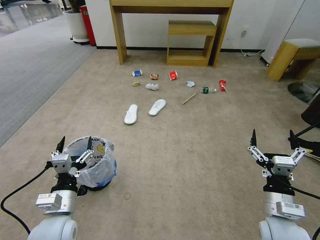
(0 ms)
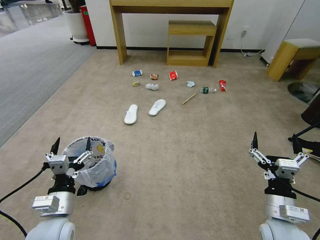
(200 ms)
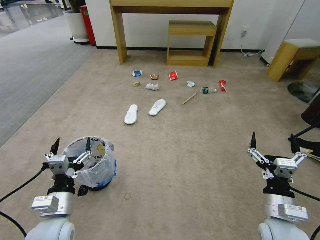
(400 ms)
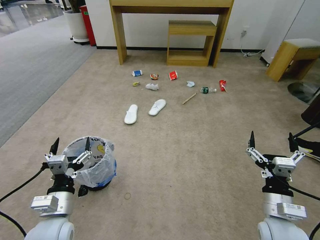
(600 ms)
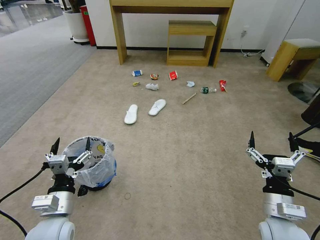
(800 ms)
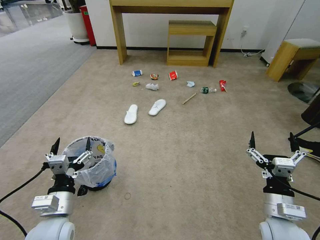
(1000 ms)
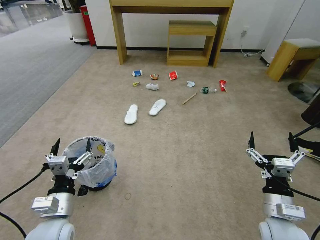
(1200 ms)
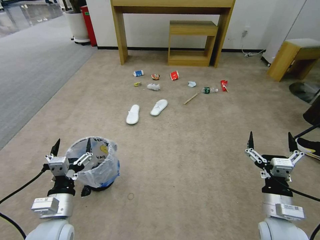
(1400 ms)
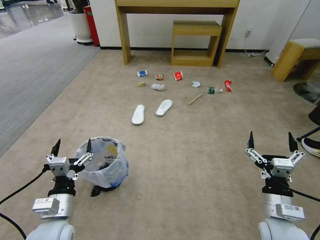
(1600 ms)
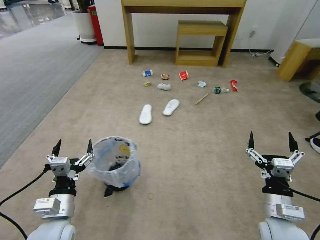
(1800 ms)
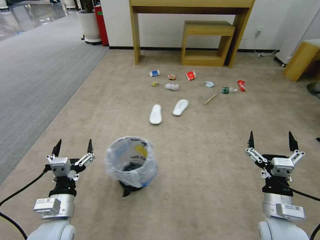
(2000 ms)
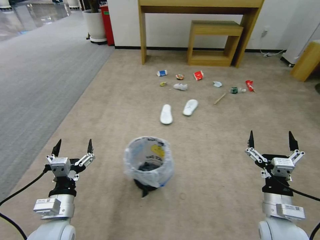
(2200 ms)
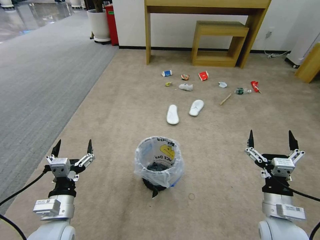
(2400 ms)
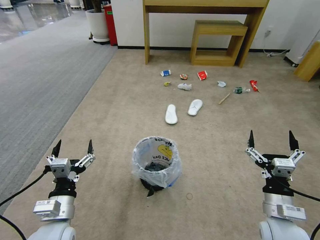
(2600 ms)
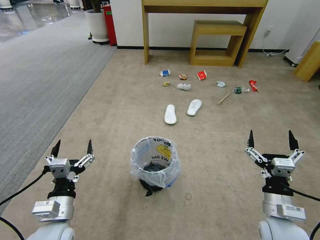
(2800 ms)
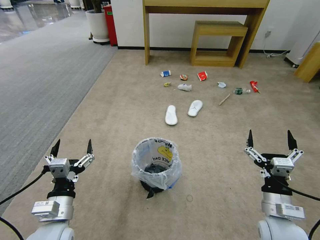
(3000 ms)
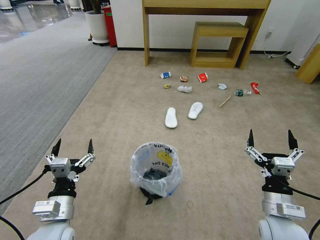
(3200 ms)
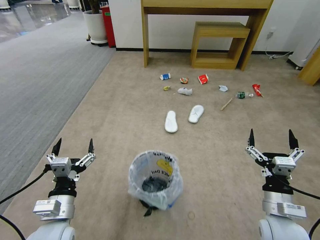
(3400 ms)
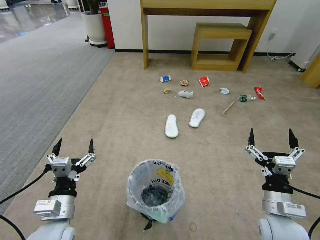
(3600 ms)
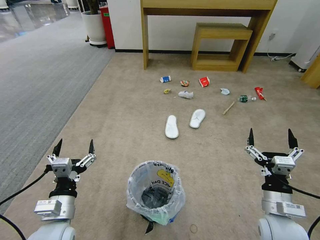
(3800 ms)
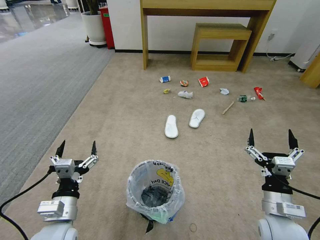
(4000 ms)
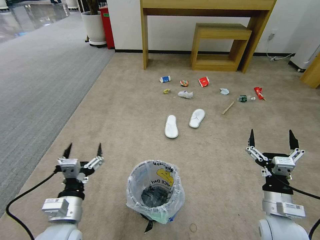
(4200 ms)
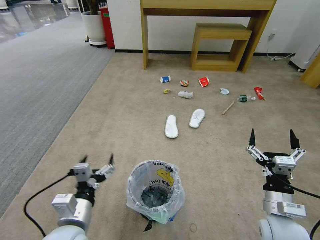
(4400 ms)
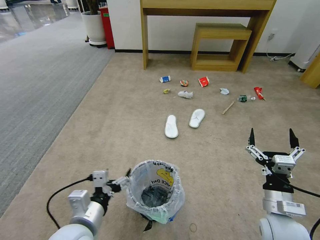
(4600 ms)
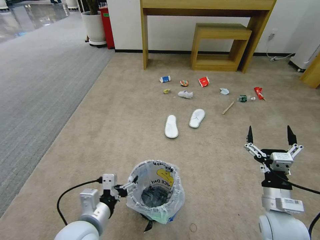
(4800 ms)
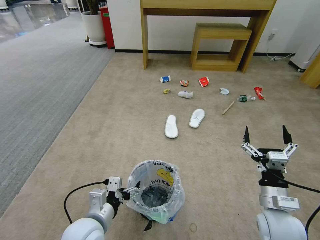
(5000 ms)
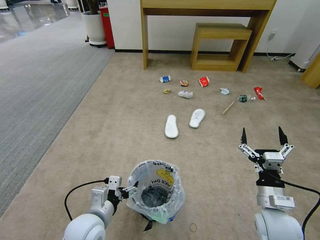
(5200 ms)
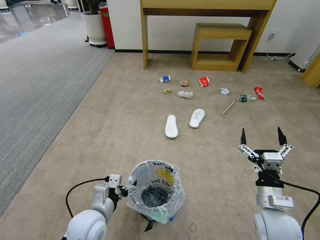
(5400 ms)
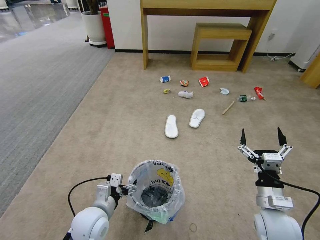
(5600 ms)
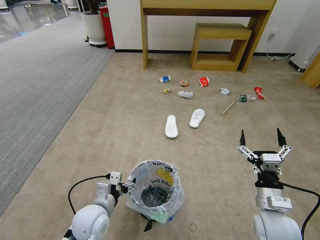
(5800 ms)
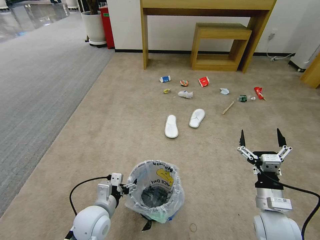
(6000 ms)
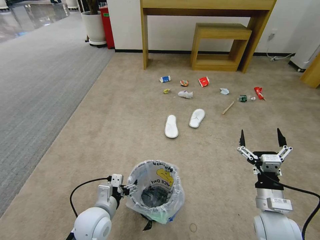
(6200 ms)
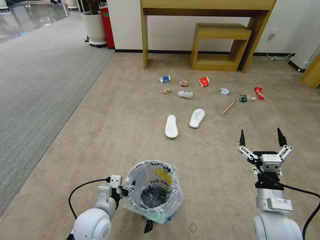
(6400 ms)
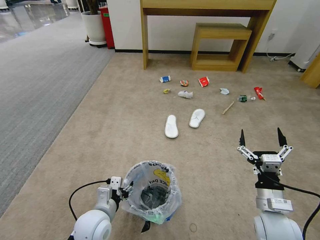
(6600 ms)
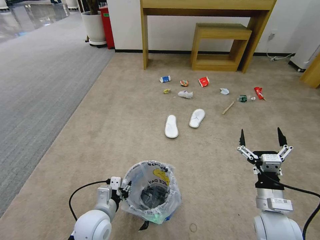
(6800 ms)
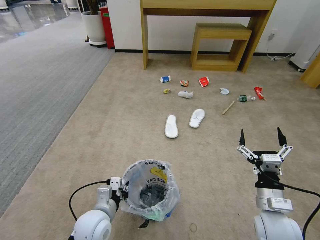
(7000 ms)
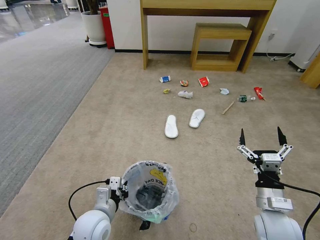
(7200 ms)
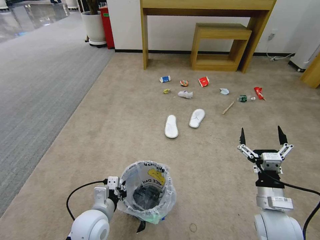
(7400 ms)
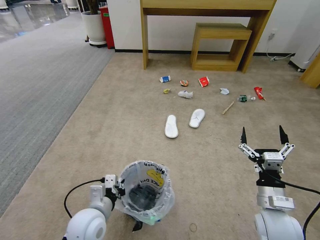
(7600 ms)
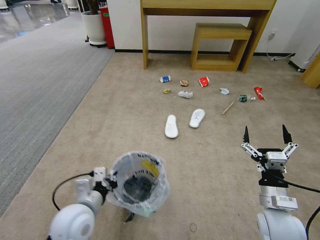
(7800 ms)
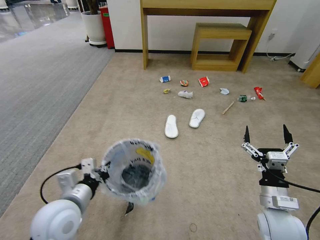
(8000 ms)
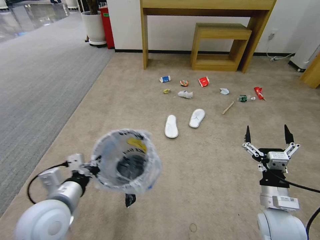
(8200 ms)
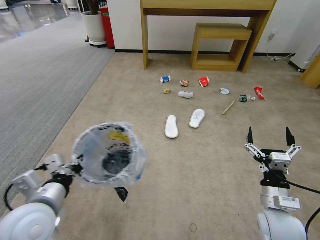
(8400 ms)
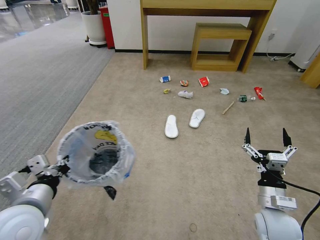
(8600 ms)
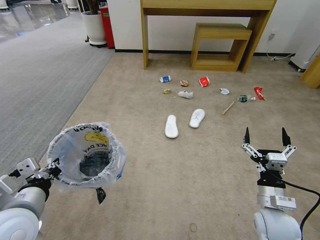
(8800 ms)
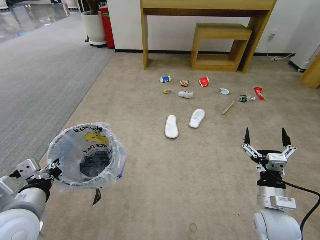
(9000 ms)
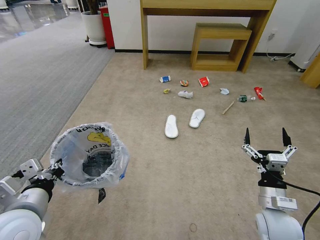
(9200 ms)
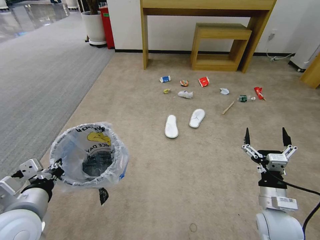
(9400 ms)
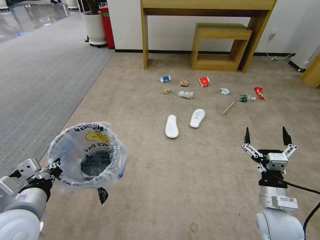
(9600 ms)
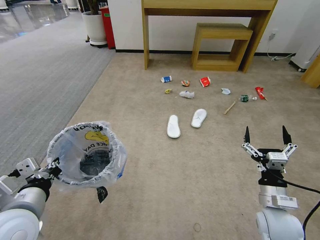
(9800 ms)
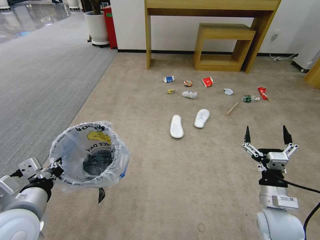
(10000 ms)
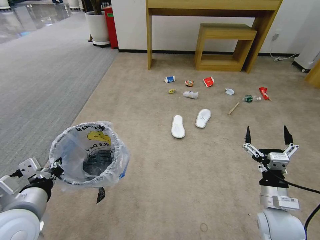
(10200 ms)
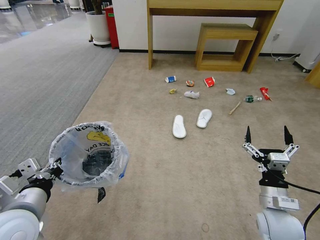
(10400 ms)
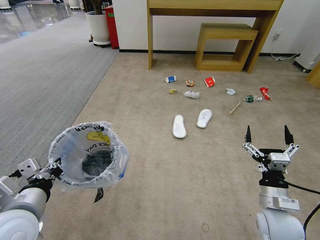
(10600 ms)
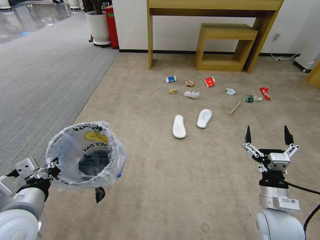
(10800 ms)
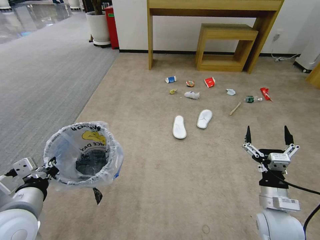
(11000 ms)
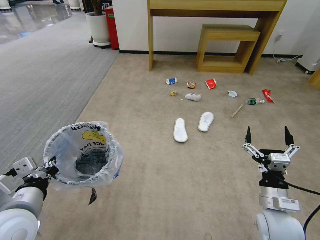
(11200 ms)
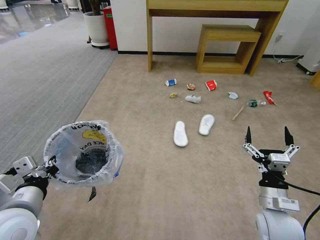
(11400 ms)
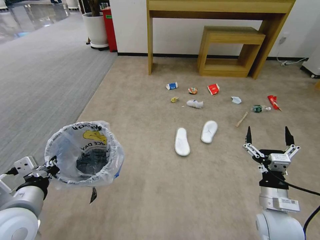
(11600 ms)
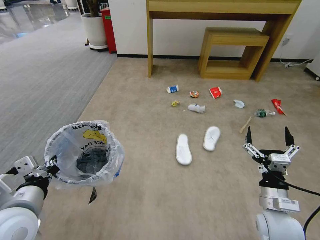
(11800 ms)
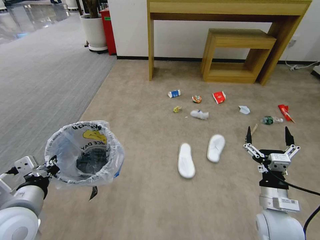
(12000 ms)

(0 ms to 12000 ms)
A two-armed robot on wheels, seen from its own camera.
Task of the whole recording: Pick up the trash bin and place the garbage on the floor into it.
3000 ms - 4400 ms: The left gripper goes roughly 5 cm to the right.
4400 ms - 6000 ms: The left gripper shifts about 10 cm downward and forward.
6000 ms - 7600 ms: The left gripper closes its fingers.
7600 ms - 9000 ms: The left gripper heads upward and to the left, covering about 15 cm.
9000 ms - 10400 ms: Both grippers stay put.

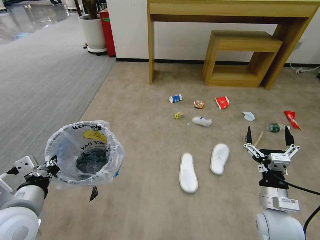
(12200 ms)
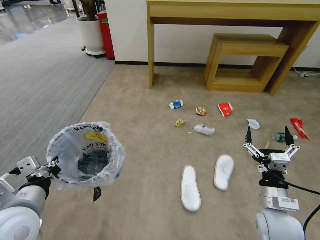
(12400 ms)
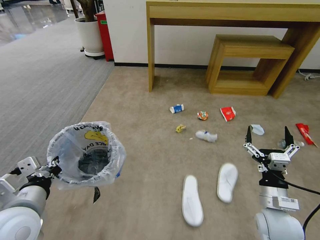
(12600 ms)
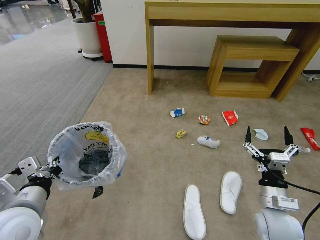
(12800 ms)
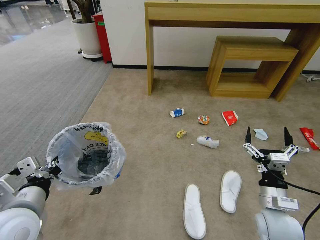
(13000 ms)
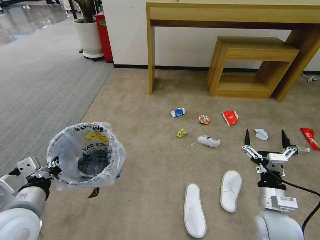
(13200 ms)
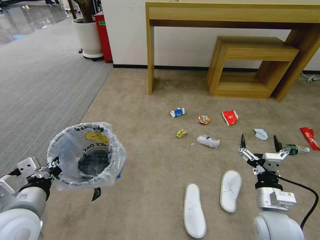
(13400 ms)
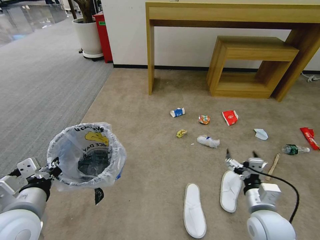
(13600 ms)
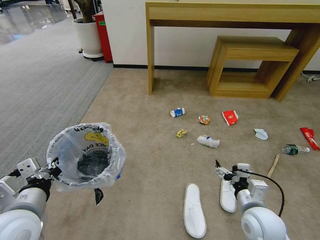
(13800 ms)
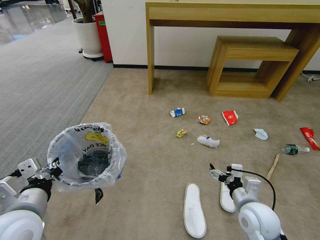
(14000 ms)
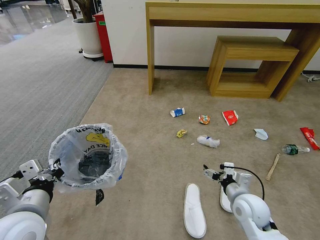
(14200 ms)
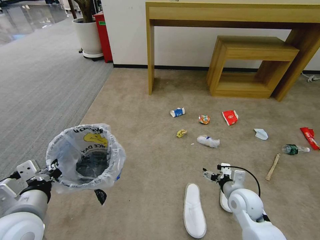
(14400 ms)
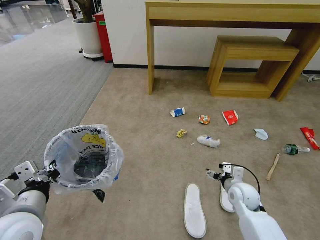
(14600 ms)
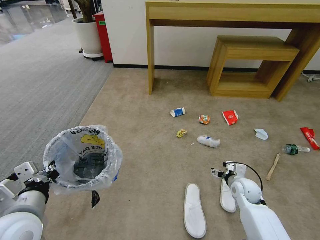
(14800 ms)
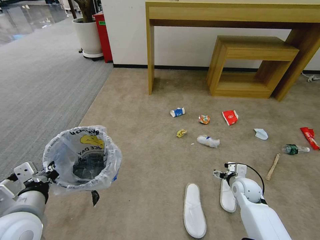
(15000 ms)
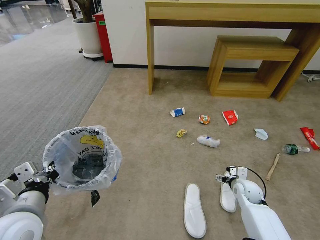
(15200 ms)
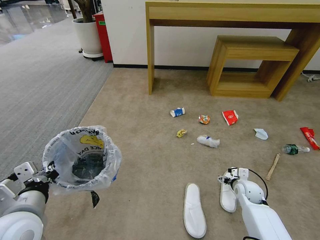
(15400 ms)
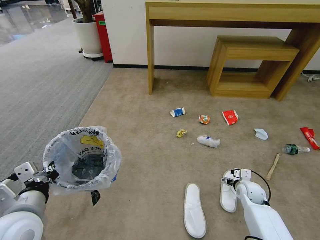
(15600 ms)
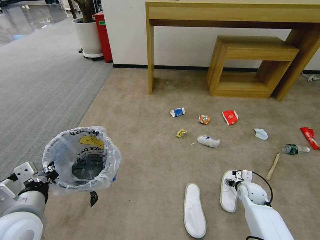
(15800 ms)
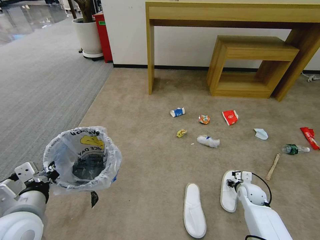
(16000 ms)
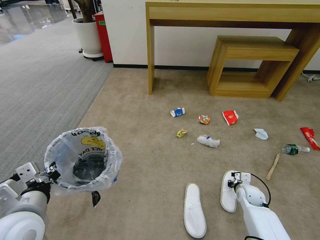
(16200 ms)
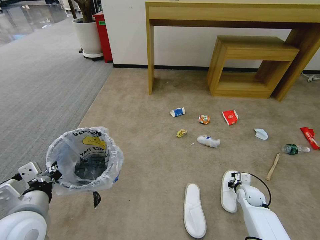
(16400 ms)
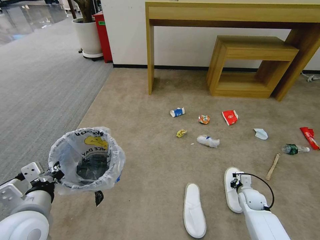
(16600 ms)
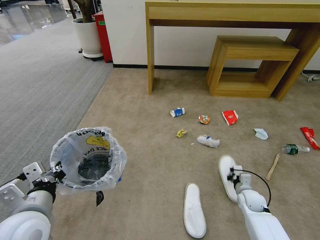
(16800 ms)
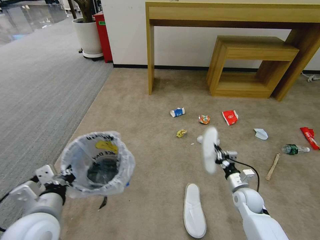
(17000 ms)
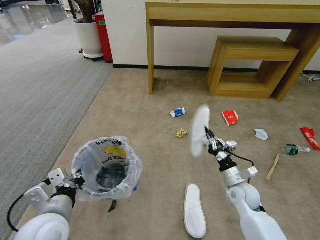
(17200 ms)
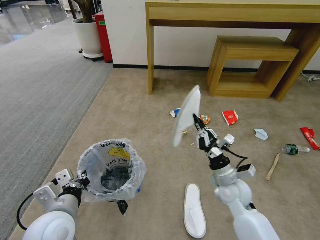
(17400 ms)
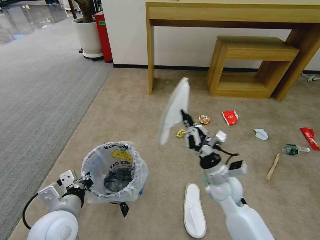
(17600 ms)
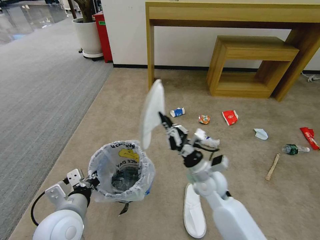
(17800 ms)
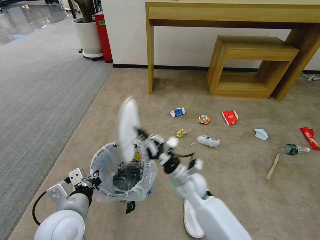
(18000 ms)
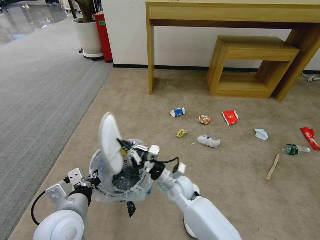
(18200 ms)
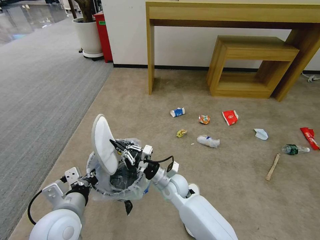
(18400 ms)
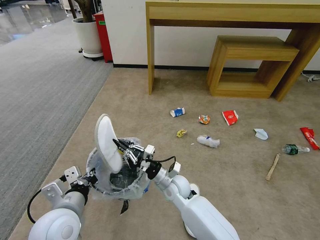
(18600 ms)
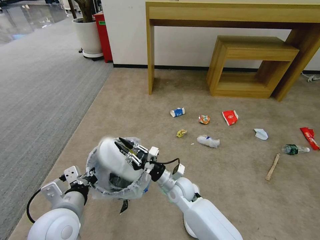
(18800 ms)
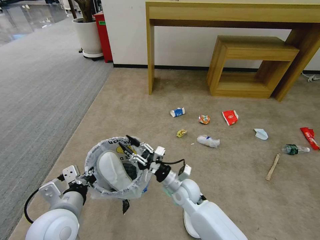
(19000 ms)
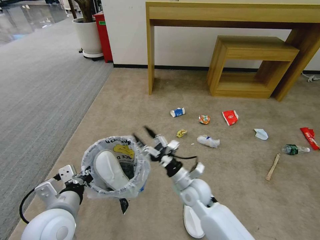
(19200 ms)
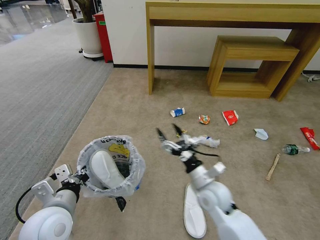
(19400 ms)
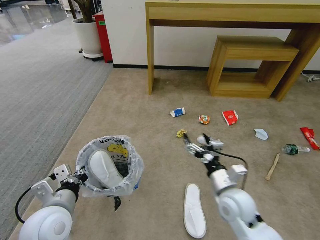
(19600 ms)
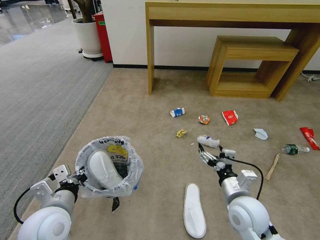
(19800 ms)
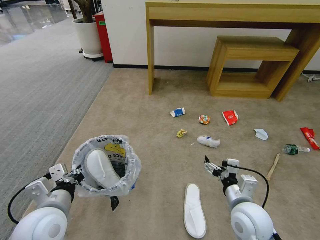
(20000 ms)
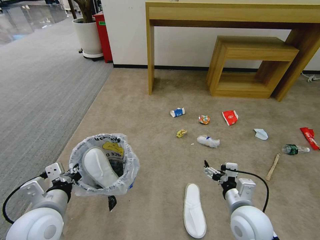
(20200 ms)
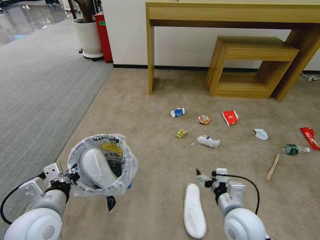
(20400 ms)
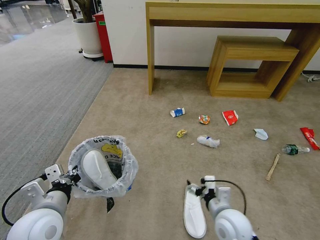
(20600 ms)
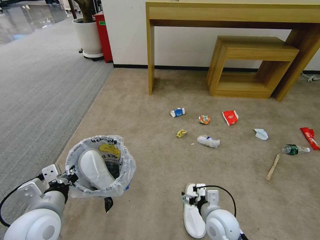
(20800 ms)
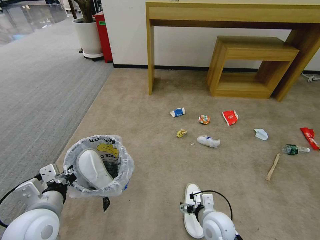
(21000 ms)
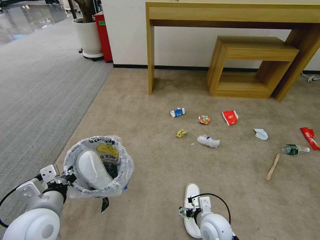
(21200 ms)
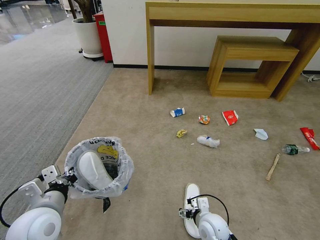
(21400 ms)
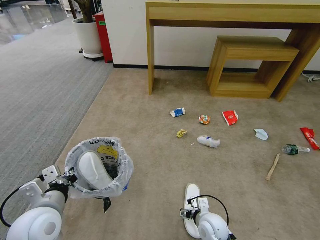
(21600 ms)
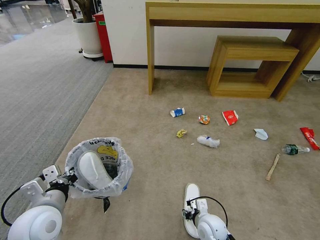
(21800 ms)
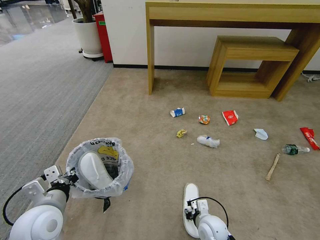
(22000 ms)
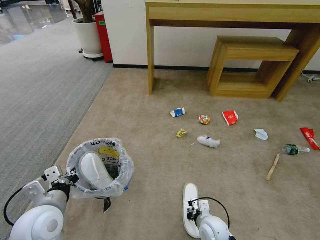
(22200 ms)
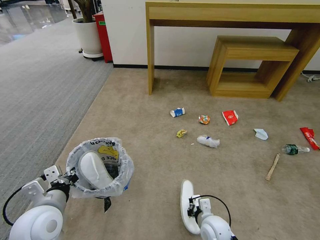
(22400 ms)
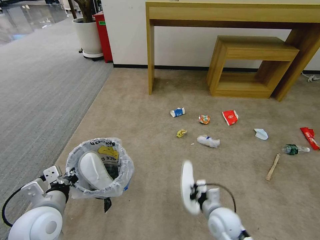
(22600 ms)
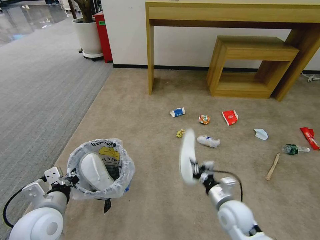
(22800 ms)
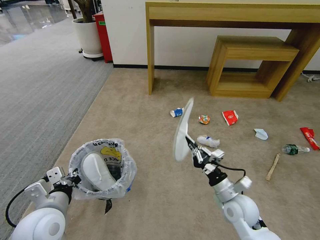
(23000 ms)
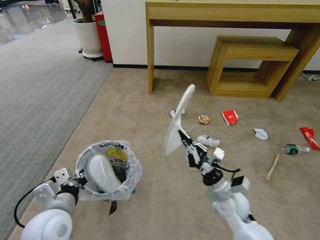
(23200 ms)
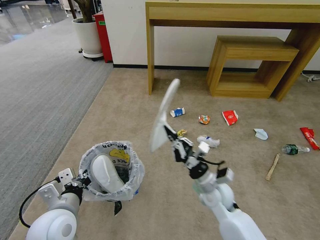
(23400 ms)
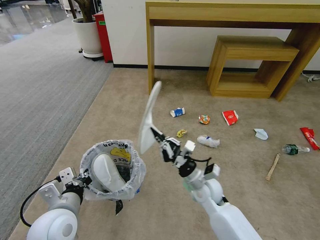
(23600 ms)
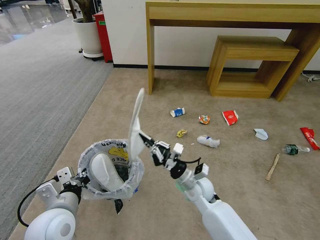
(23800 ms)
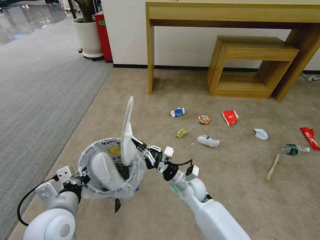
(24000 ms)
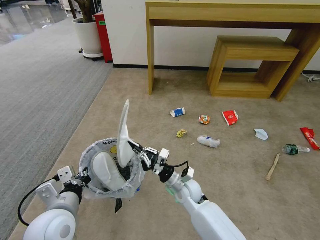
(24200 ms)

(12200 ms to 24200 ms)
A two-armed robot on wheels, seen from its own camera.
Task of the whole recording: Pick up the trash bin and place the garbage on the floor into it.
13800 ms - 15200 ms: The right gripper goes about 20 cm forward, downward and to the right.
15200 ms - 16600 ms: The right gripper shifts roughly 5 cm downward, and closes up.
16600 ms - 18200 ms: The left gripper heads to the right, covering about 5 cm, while the right gripper is displaced to the left by approximately 30 cm.
18200 ms - 19800 ms: The right gripper is displaced to the right, backward and upward by approximately 20 cm, and opens its fingers.
19800 ms - 21200 ms: The right gripper moves downward and to the left, roughly 15 cm.
21200 ms - 22600 ms: The right gripper closes its fingers.
22600 ms - 24200 ms: The right gripper shifts some 15 cm forward and to the left.
